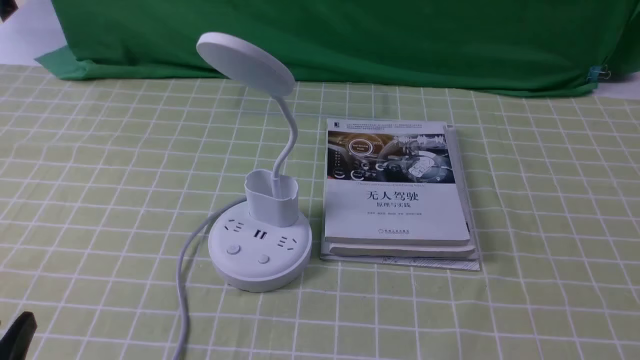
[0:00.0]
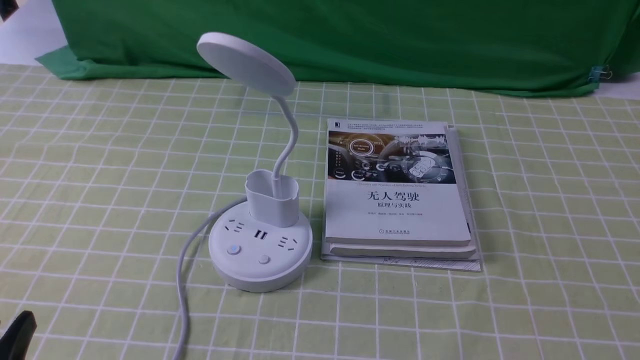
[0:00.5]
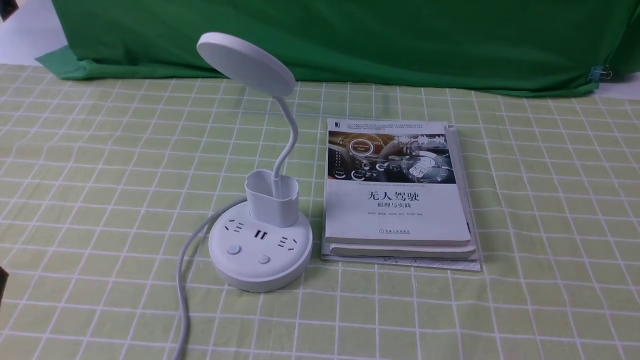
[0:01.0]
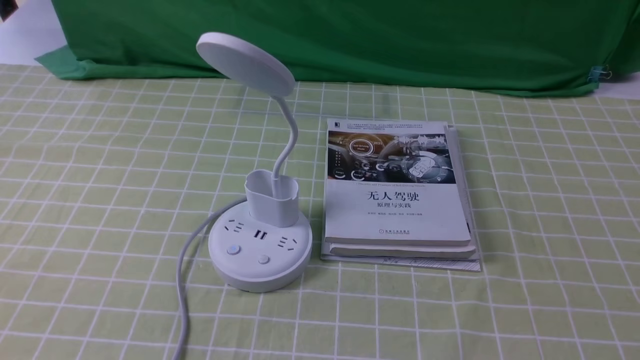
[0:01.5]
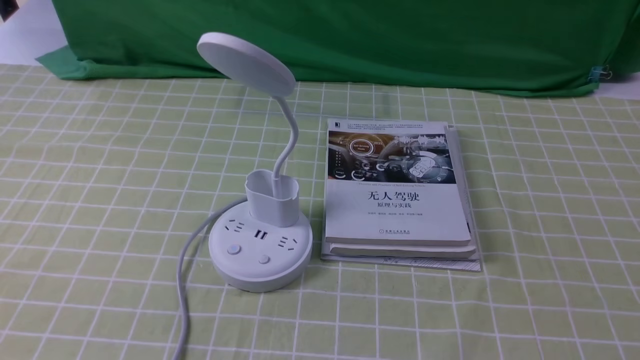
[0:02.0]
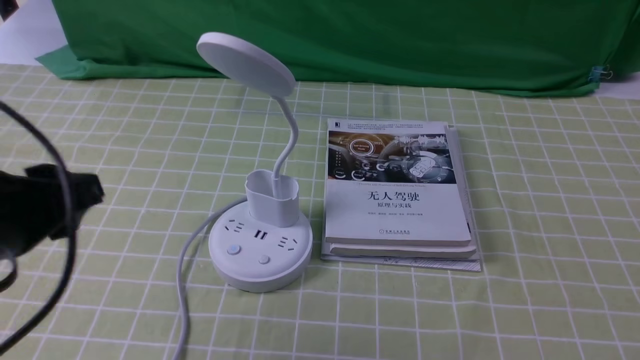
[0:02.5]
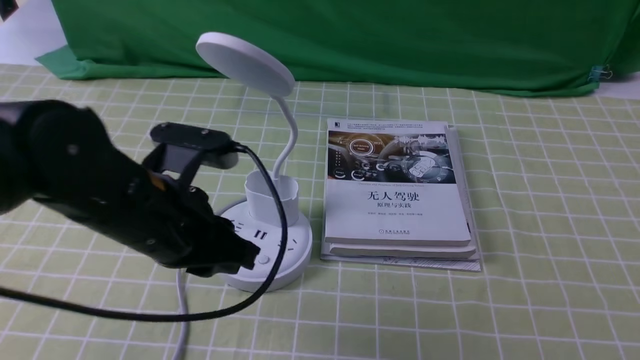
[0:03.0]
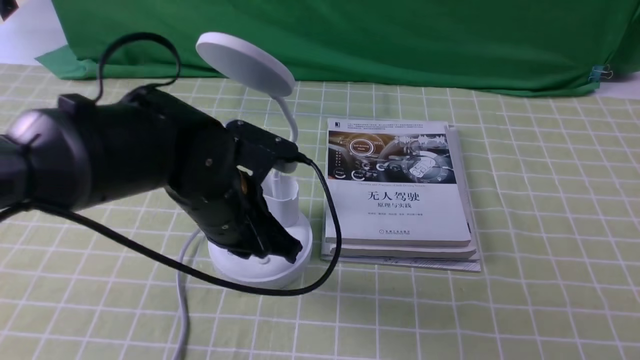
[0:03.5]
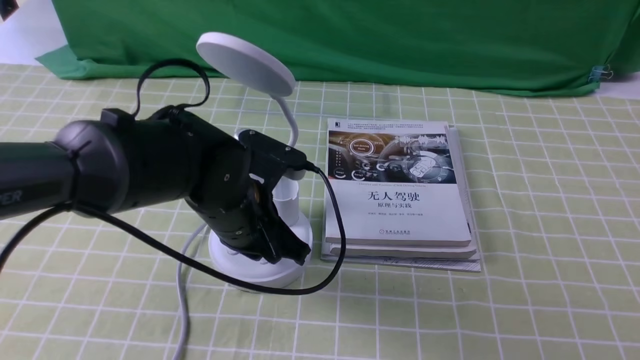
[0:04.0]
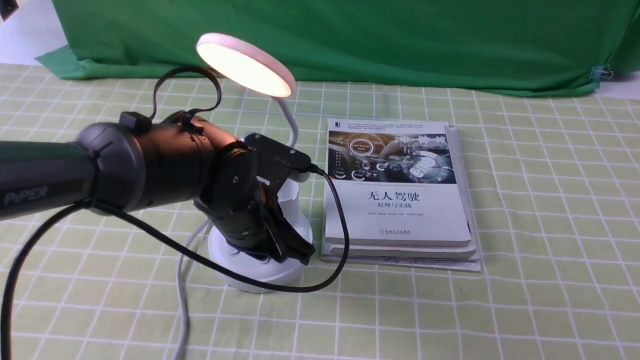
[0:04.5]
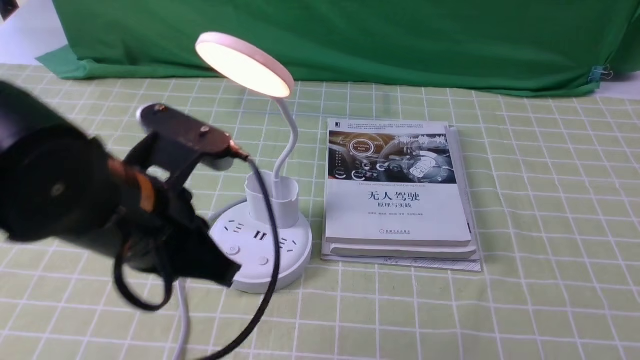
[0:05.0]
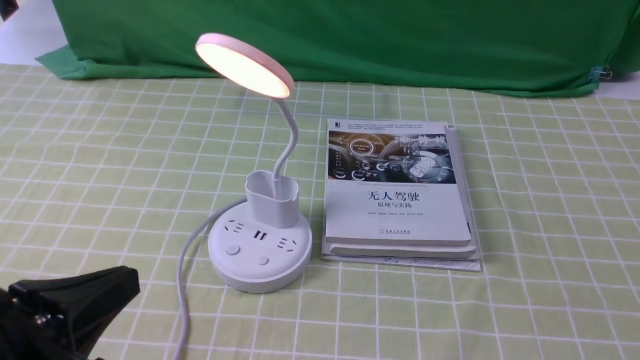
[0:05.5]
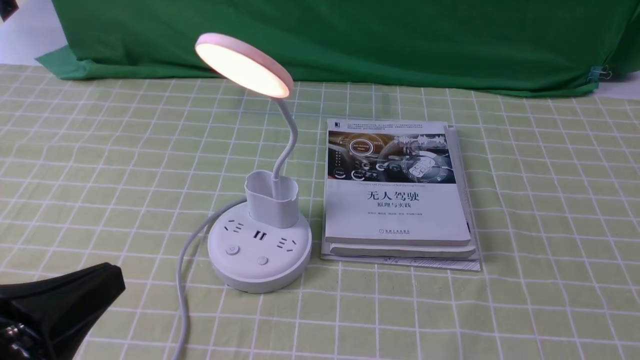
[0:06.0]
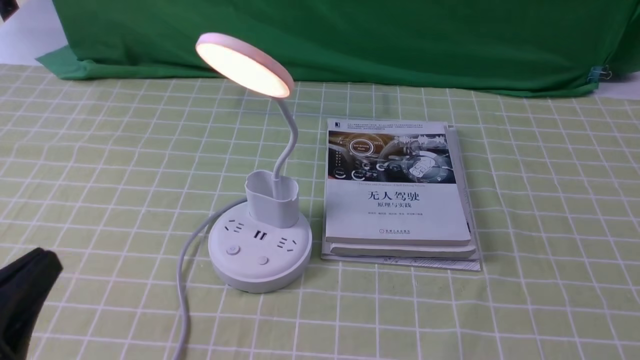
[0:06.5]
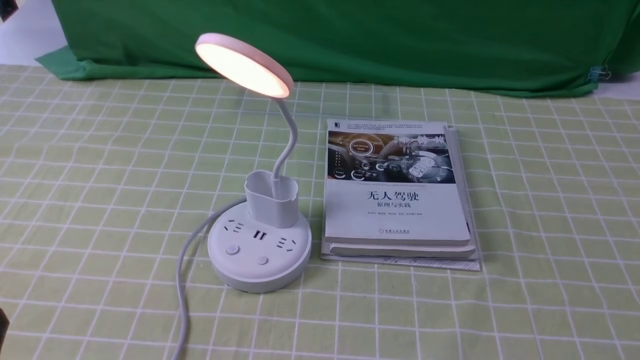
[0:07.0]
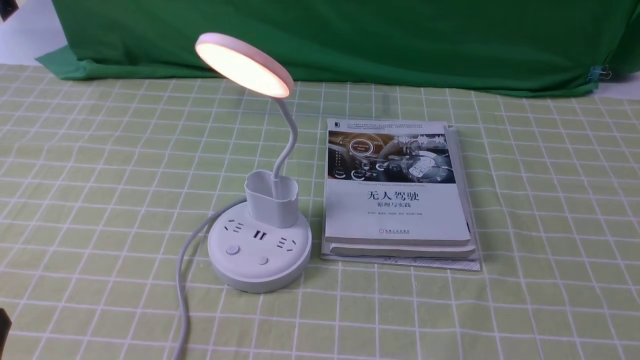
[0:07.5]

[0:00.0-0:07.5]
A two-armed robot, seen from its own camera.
Step, 0:00.0 to 0:04.5: use the left arm to press the button switch on the lamp holder.
0:02.0 to 0:04.0: The left gripper moves forward, to the right and downward, about 35 cm, and closes up.
0:04.0 to 0:05.5: The left gripper is displaced backward, to the left and upward by approximately 25 cm.
0:05.5 to 0:07.5: The left gripper goes roughly 10 cm downward, to the left and backward.
